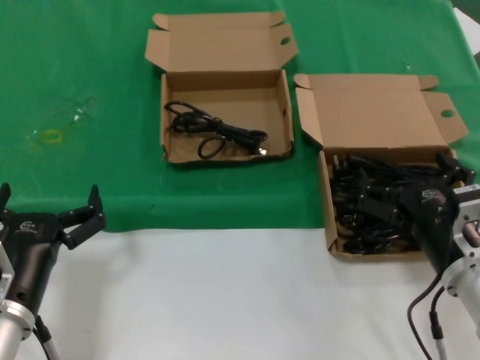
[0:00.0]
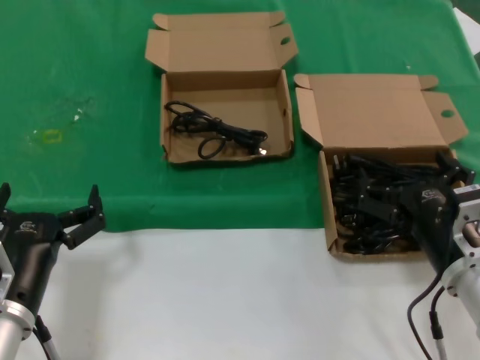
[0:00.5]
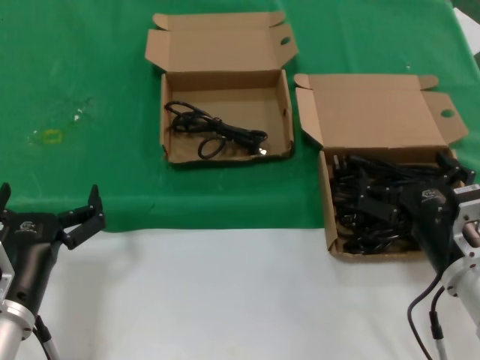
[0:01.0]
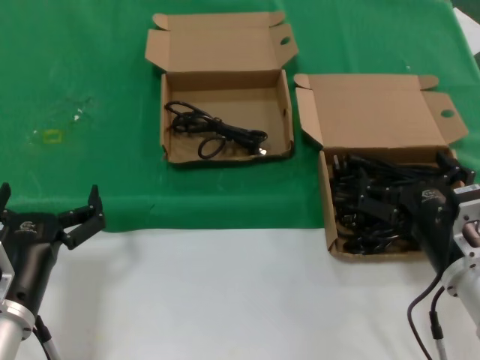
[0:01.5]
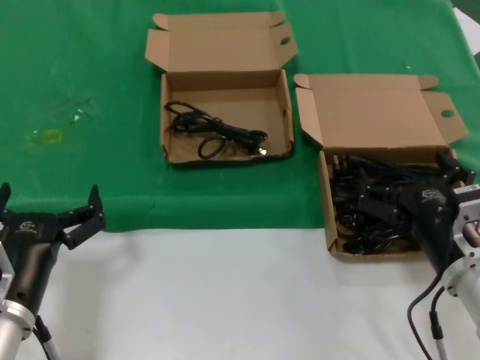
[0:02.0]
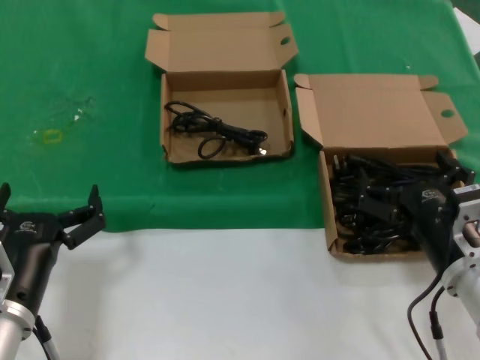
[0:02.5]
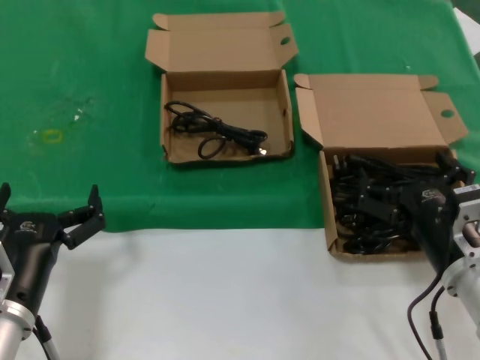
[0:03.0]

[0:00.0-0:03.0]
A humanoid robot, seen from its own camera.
Task of the whole recording: take the parts from the box containing them and put them into an empty box.
0:00.0 to 0:03.0: The two hands keep their place.
